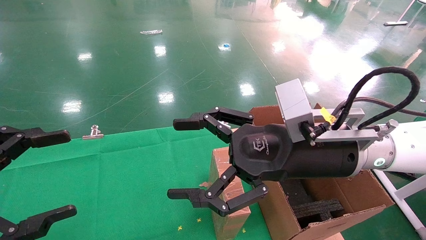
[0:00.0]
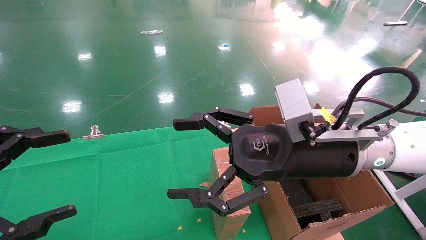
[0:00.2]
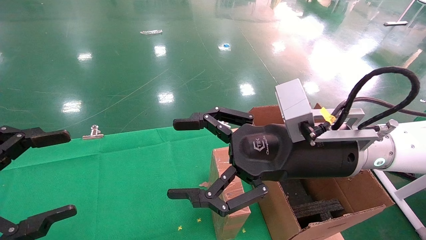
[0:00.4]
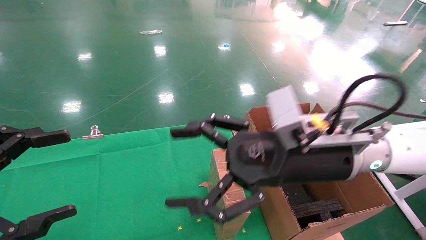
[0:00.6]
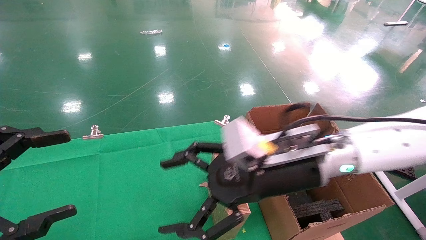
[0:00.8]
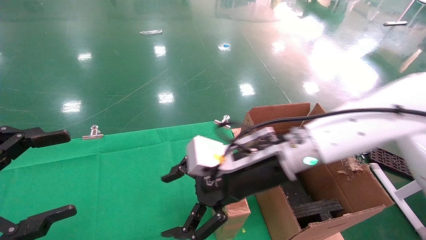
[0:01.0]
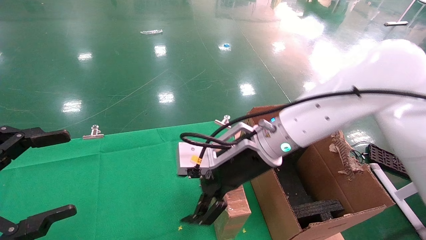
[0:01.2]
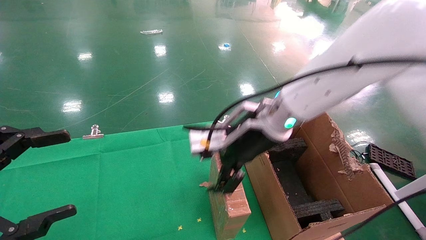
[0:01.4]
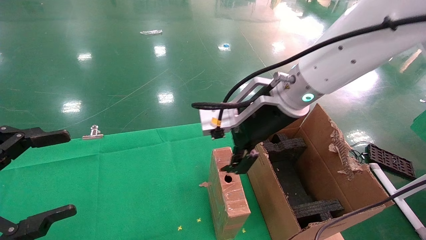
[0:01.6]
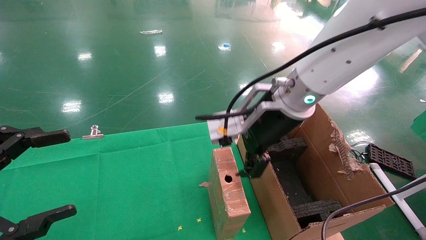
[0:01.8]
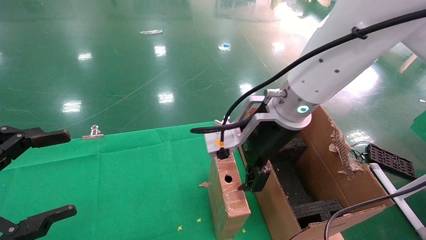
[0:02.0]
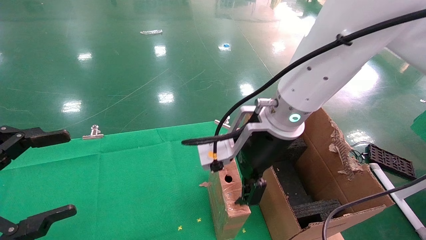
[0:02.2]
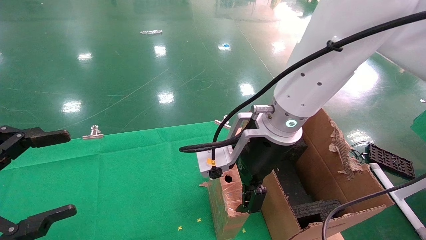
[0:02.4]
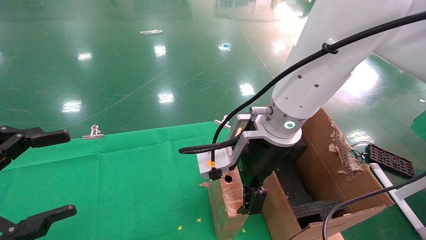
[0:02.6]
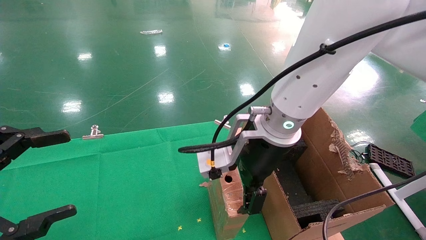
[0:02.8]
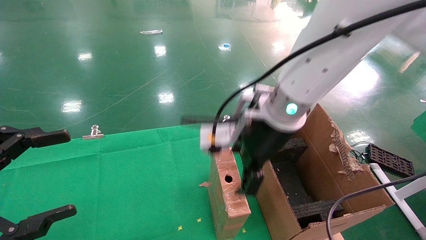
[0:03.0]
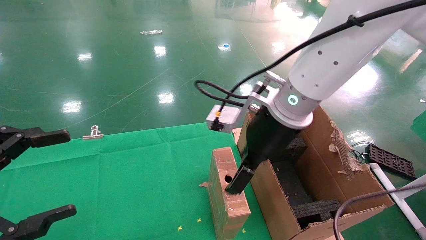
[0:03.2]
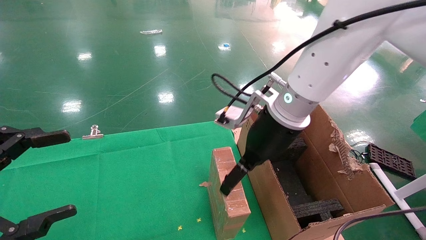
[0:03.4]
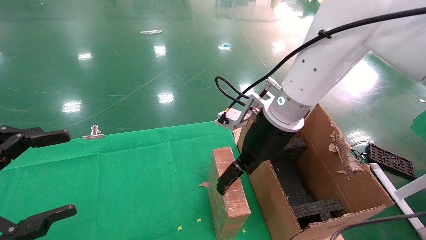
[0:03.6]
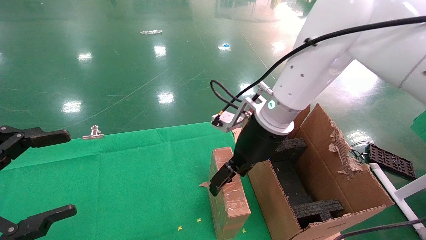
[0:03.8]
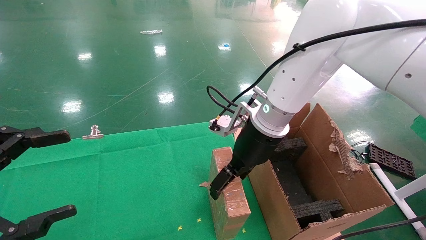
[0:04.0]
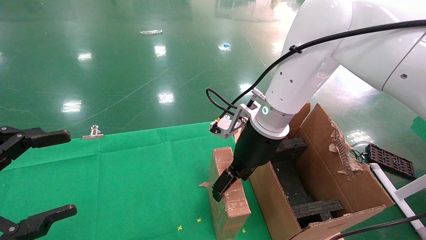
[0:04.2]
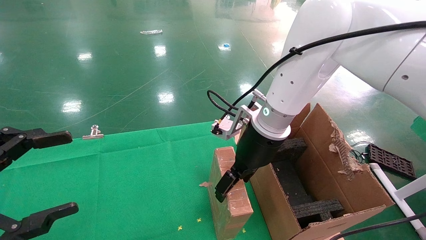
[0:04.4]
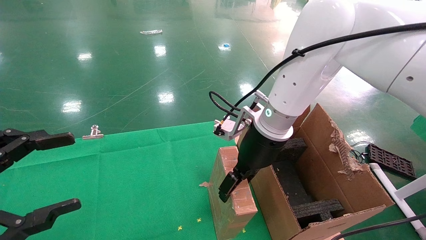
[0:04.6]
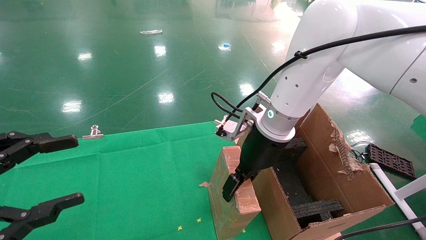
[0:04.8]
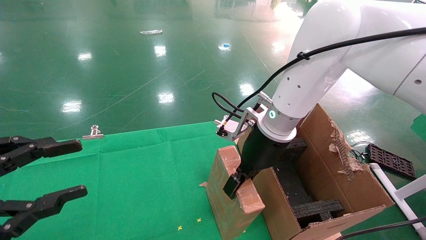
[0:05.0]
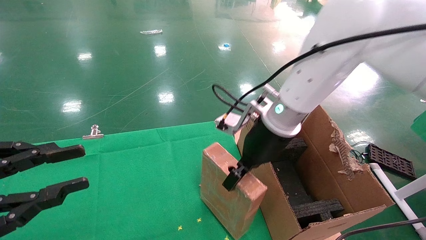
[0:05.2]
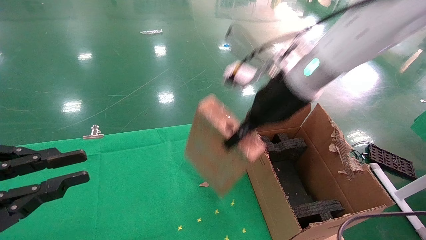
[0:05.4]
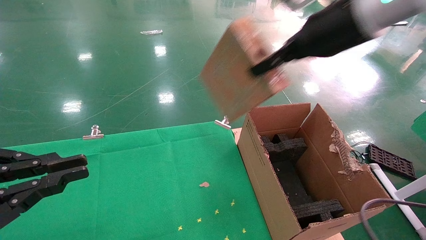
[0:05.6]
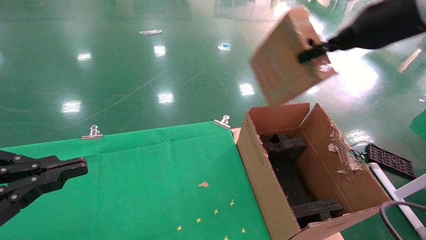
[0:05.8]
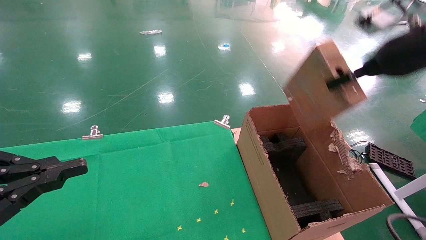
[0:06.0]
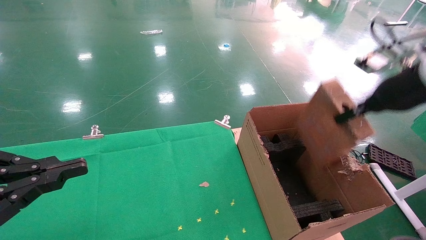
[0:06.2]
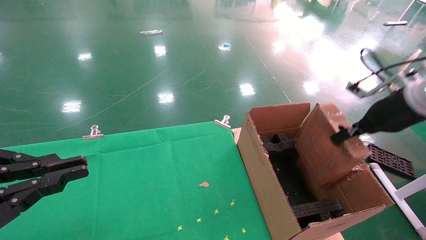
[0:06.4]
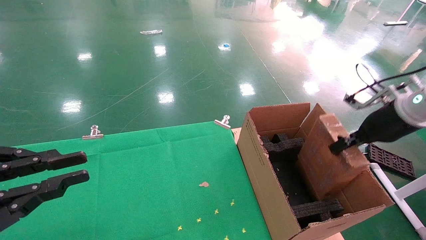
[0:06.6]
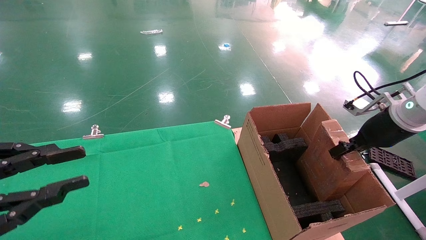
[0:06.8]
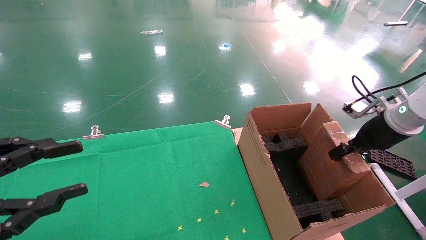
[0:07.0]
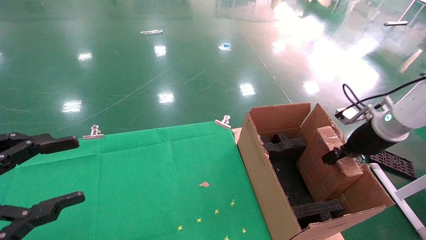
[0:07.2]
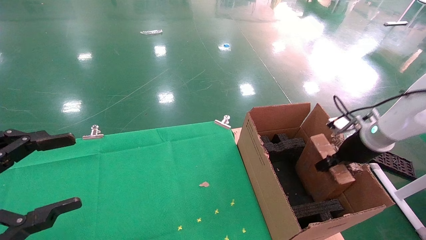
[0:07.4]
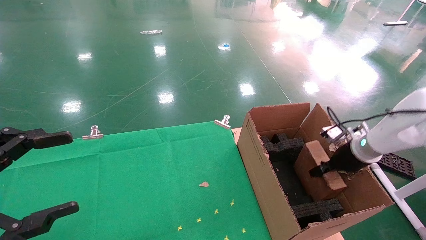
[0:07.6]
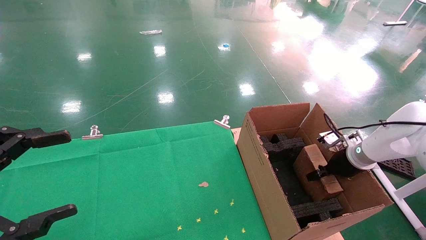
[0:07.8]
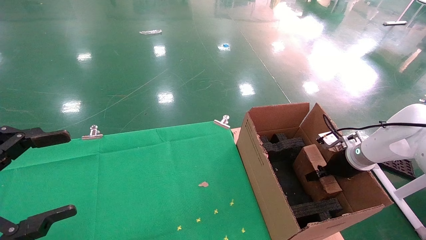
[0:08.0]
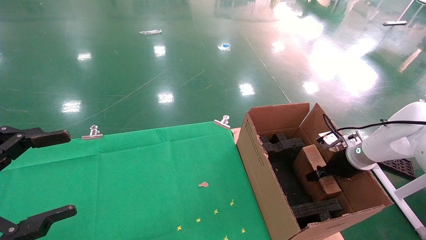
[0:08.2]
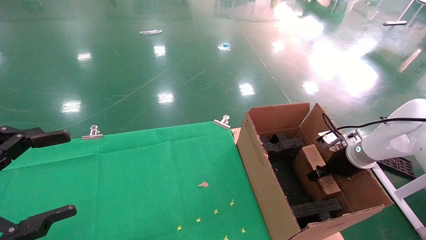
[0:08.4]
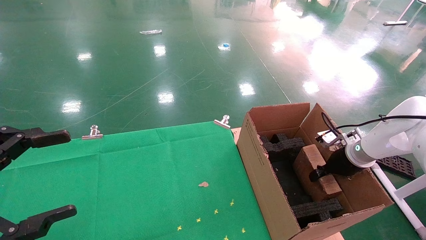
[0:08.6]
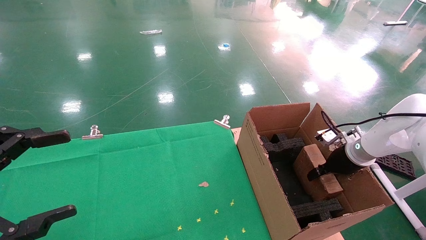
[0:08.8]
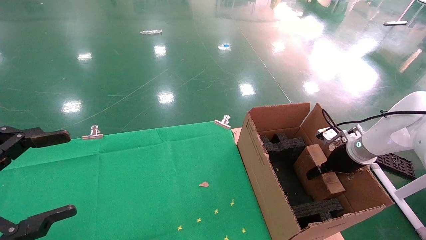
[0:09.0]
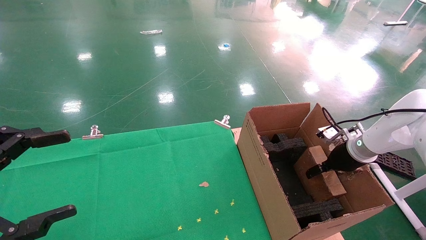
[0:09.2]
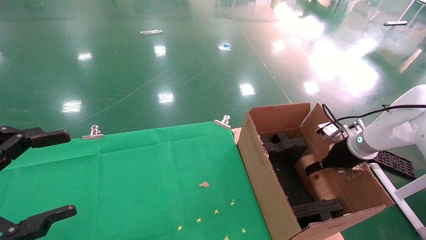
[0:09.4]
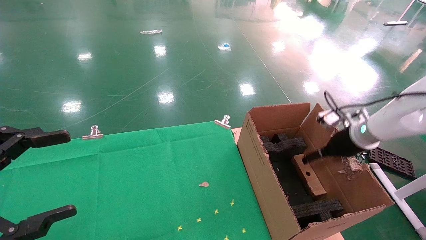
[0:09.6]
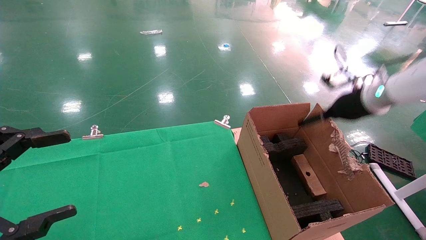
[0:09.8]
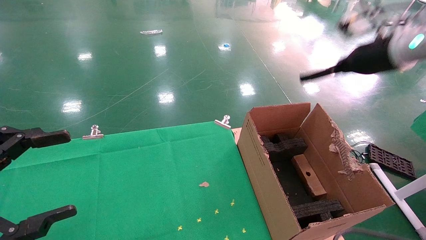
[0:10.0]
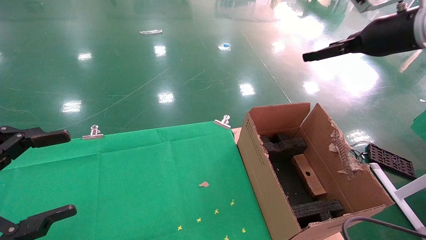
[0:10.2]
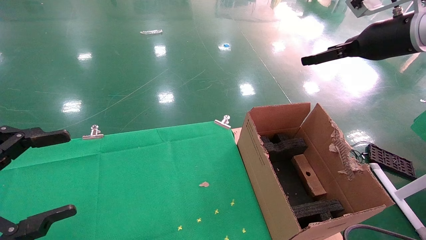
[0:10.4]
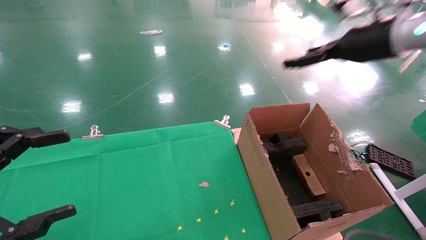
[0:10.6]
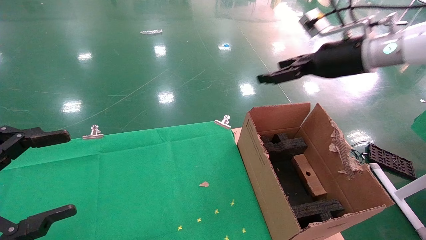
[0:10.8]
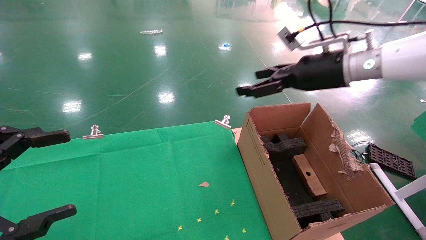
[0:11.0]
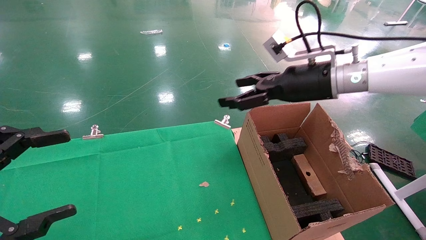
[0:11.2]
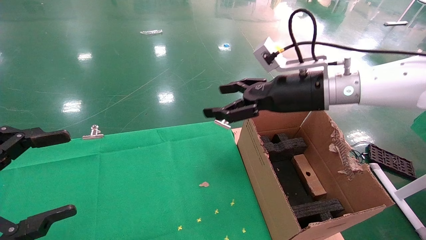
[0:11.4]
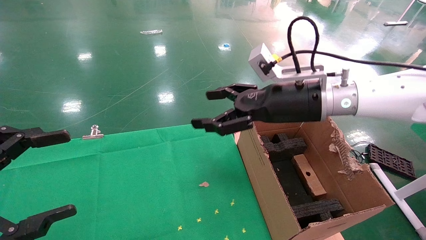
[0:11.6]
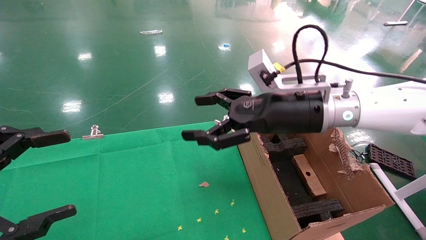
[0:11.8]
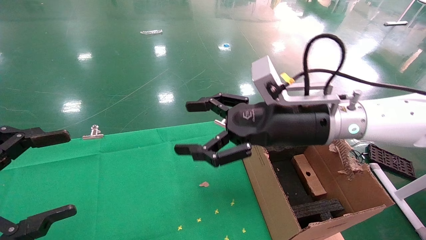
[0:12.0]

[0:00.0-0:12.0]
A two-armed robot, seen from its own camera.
Task of the whole recording: using a robotic arm to pick up a cardboard box and palace it the carton.
Step, 0:00.8 to 0:04.8: Pick up the mouse and the power cord paper box.
Step, 0:05.0 to 0:09.2: Place the mouse and the power cord paper box into the container.
0:00.0 to 0:01.6: The right gripper heads forward and to the left, covering some 10 cm.
0:03.0 to 0:04.4: The right gripper is displaced forward by about 5 cm.
0:04.4 to 0:06.0: The right gripper heads to the right and upward, covering about 25 cm, and closes, while the left gripper closes its fingers.
0:06.0 to 0:07.6: The left gripper opens. Meanwhile the right gripper is displaced downward by approximately 25 cm.
0:07.6 to 0:09.0: The right gripper opens.
0:09.0 to 0:10.4: The right gripper goes roughly 25 cm upward, and opens its fingers.
0:10.4 to 0:12.0: The right gripper is displaced to the left and downward by about 25 cm.

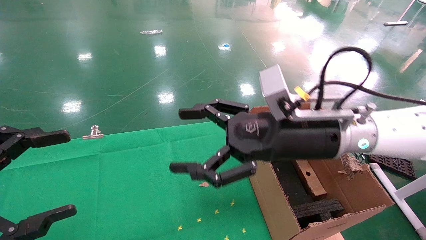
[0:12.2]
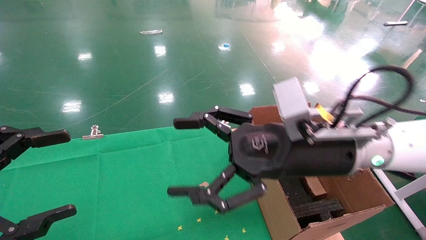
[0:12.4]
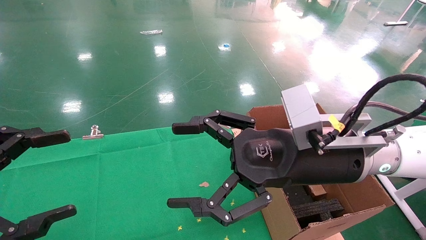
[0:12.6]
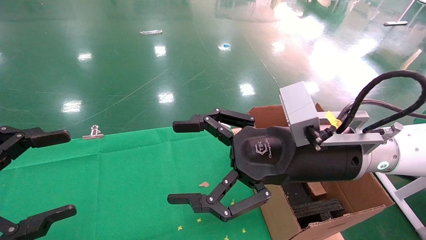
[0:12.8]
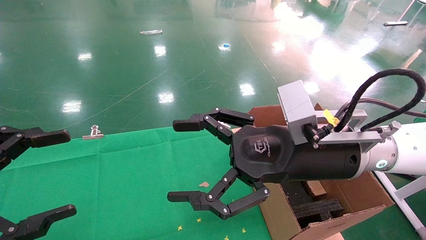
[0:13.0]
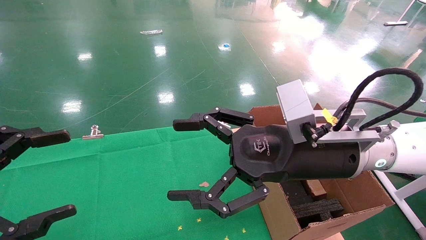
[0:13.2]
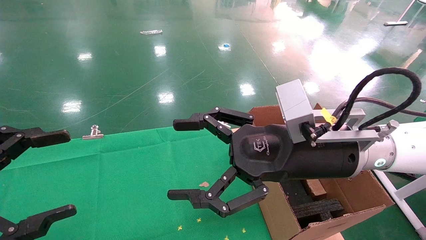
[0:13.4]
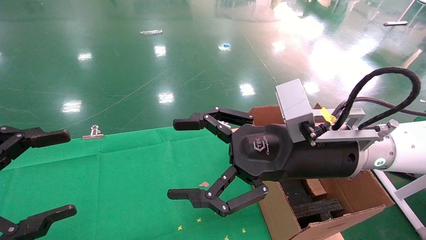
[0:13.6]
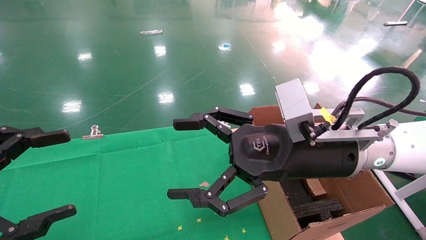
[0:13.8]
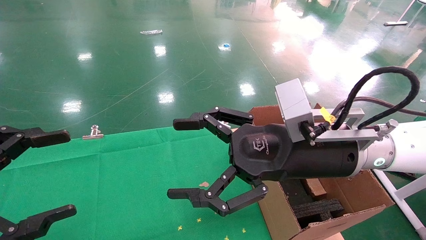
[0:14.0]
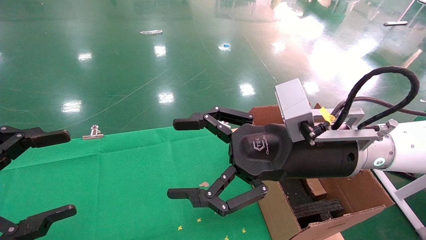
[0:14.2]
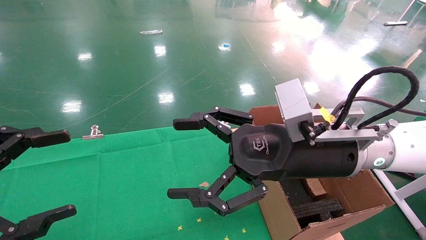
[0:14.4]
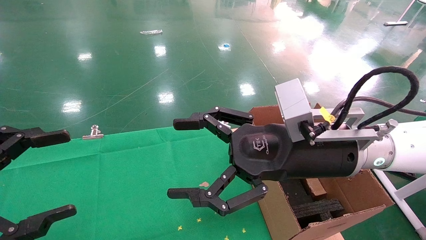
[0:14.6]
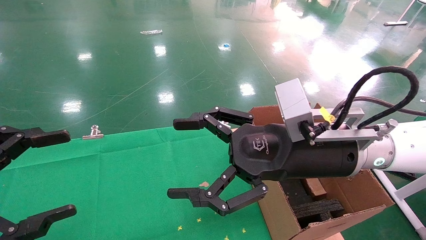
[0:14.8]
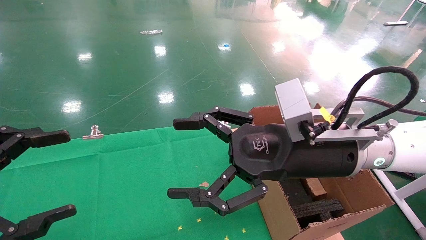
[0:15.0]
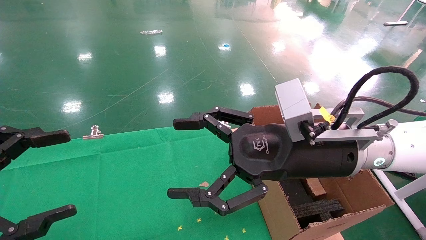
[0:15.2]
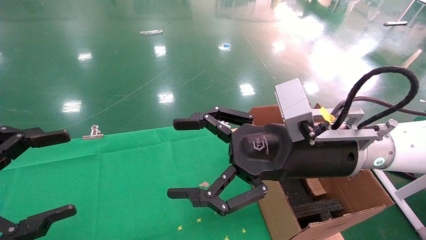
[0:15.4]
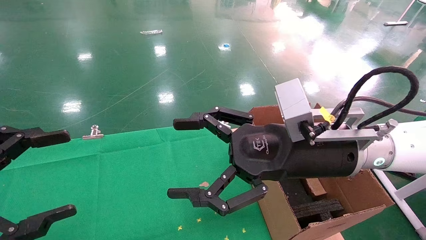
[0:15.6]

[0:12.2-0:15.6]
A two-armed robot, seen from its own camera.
Task of the whole recording: using a robotic arm to pick up a cardboard box and palace it the carton.
0:12.2 to 0:13.8: The grippers move only a little.
0:13.8 to 0:15.6: Neither gripper changes place.
